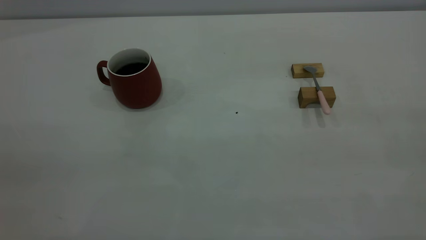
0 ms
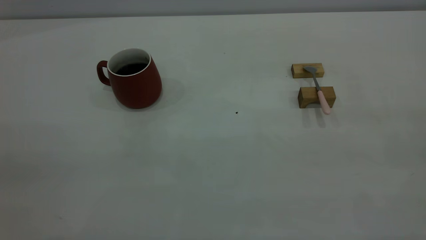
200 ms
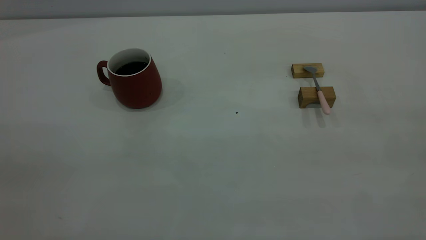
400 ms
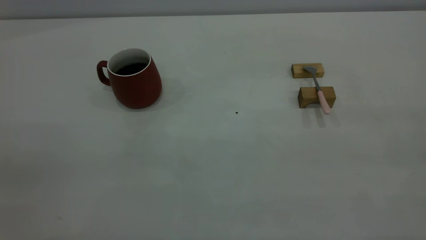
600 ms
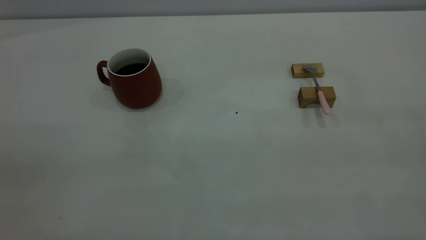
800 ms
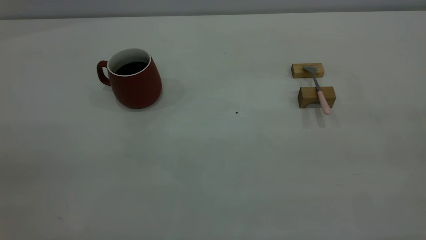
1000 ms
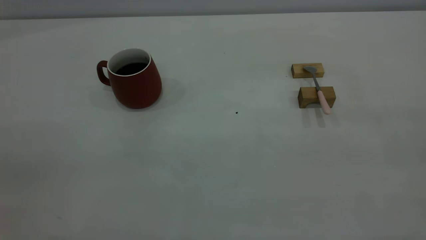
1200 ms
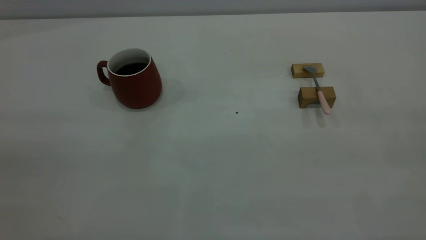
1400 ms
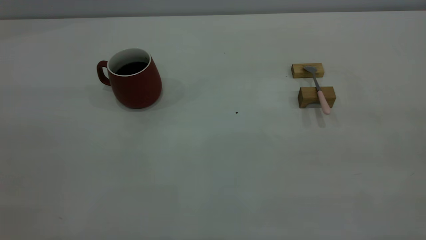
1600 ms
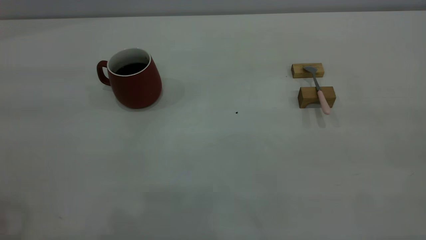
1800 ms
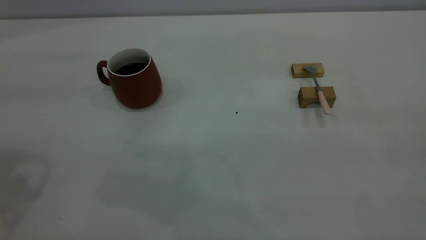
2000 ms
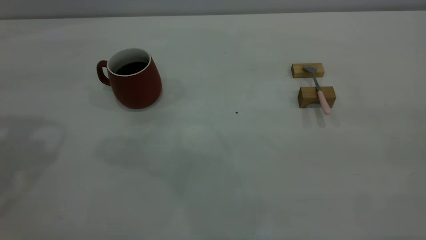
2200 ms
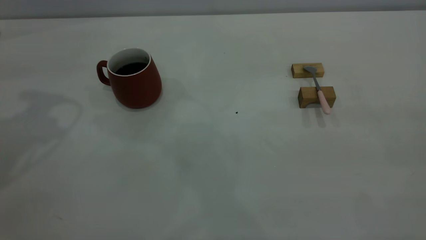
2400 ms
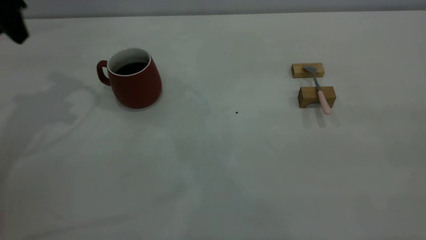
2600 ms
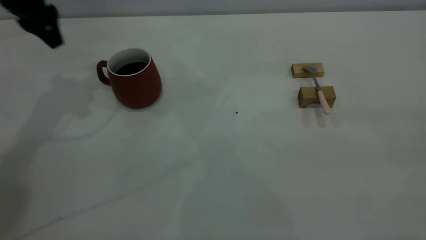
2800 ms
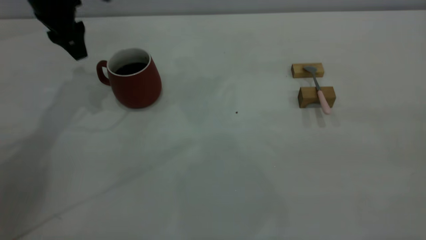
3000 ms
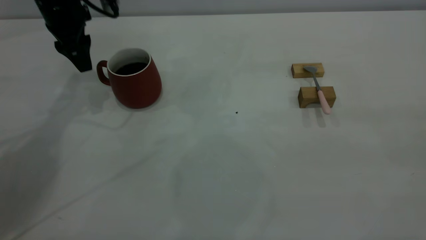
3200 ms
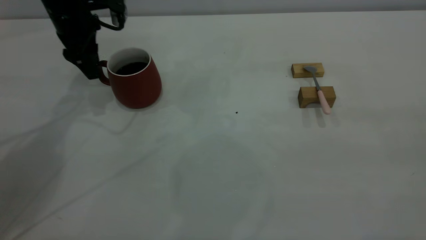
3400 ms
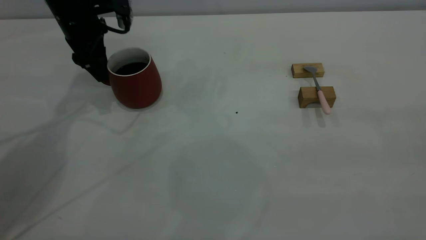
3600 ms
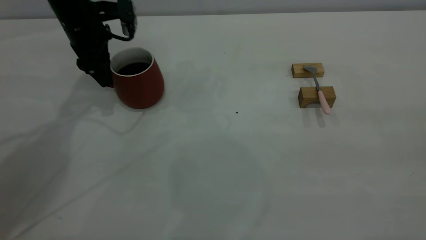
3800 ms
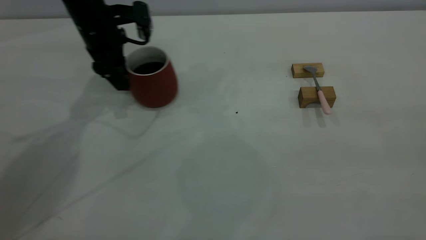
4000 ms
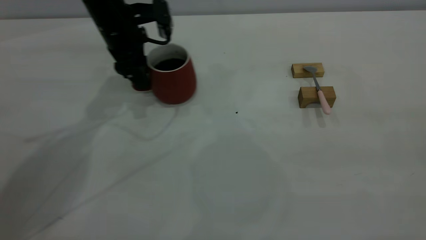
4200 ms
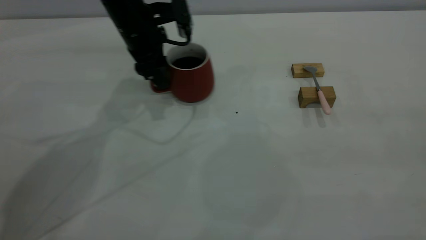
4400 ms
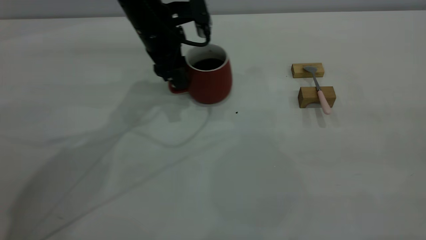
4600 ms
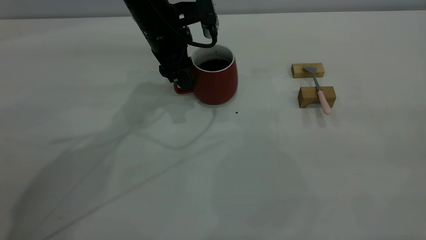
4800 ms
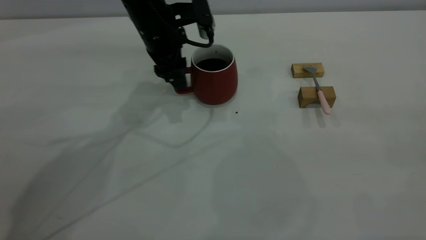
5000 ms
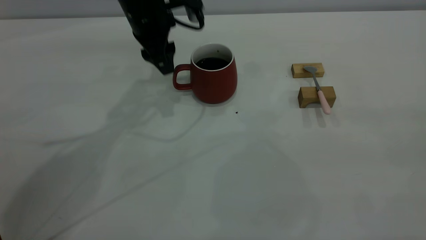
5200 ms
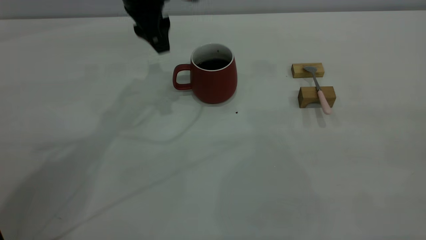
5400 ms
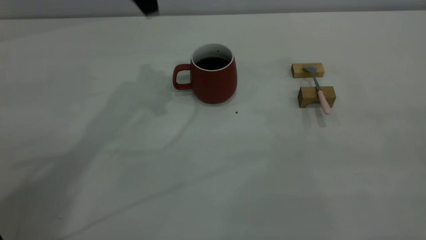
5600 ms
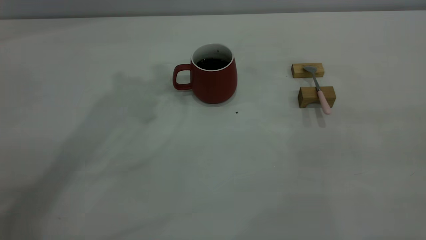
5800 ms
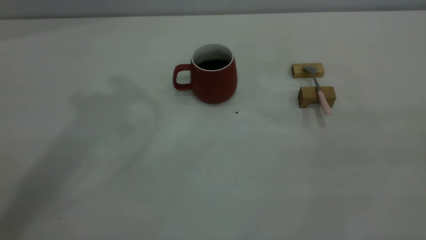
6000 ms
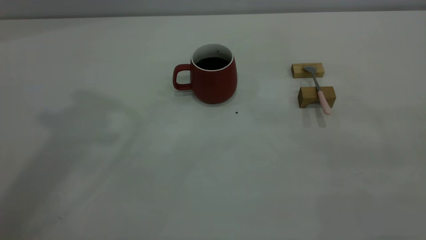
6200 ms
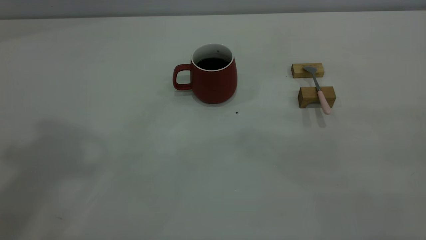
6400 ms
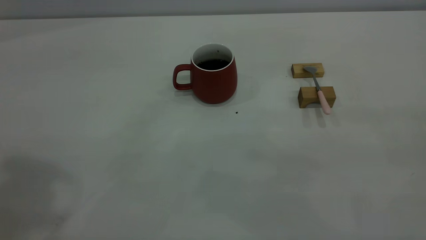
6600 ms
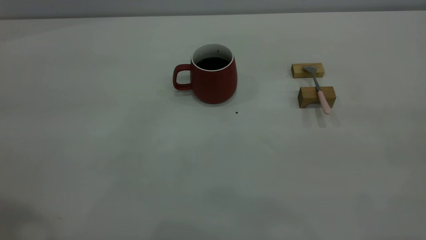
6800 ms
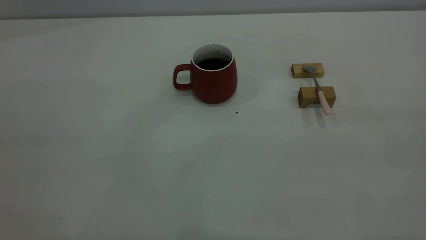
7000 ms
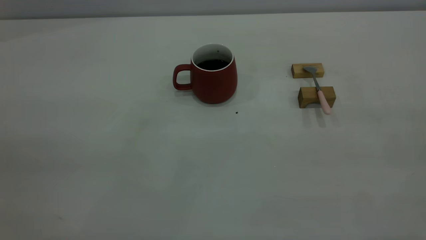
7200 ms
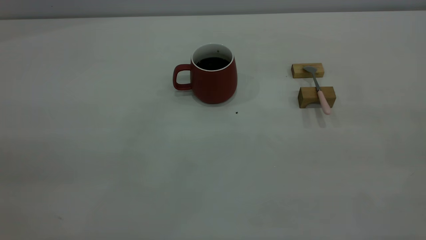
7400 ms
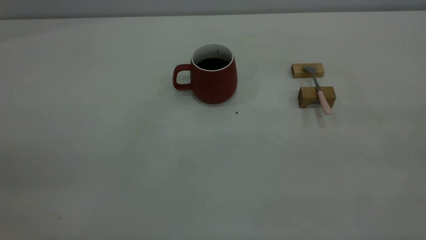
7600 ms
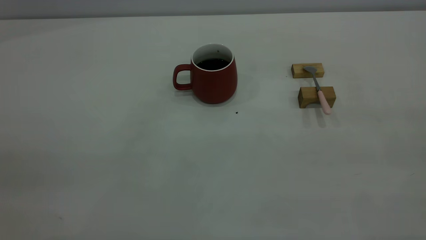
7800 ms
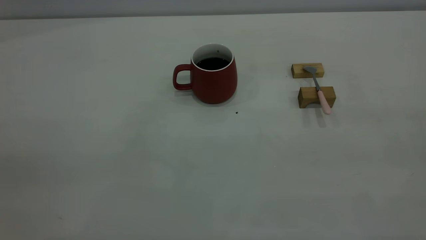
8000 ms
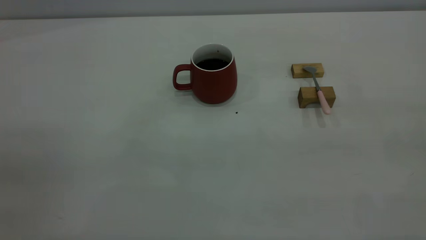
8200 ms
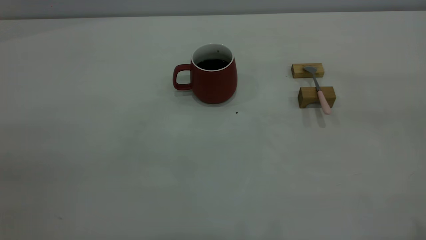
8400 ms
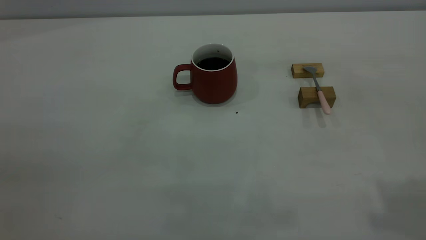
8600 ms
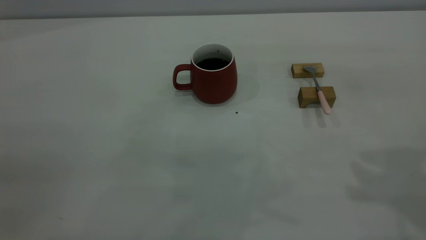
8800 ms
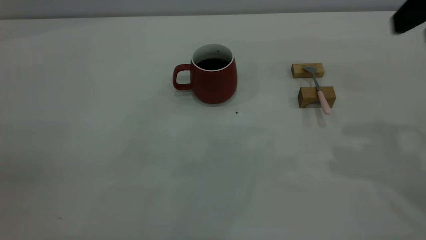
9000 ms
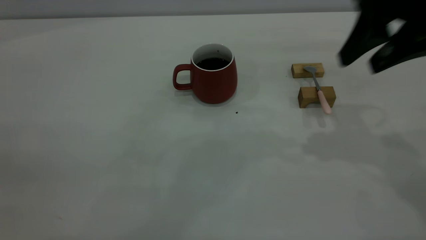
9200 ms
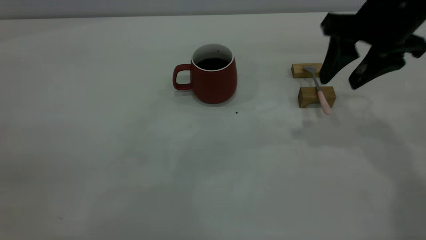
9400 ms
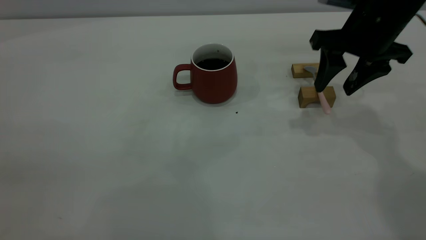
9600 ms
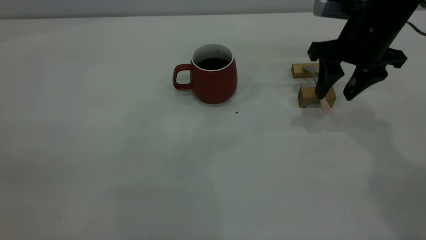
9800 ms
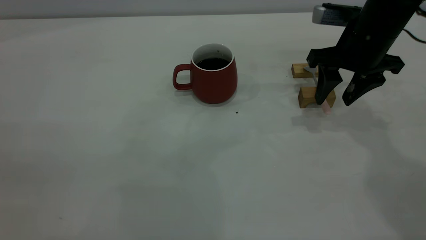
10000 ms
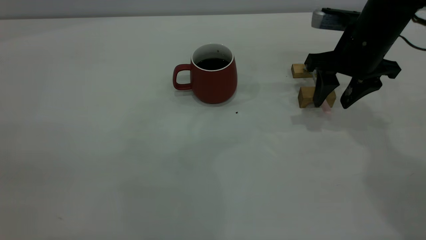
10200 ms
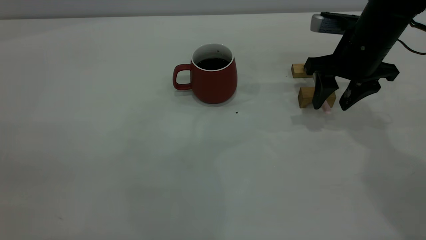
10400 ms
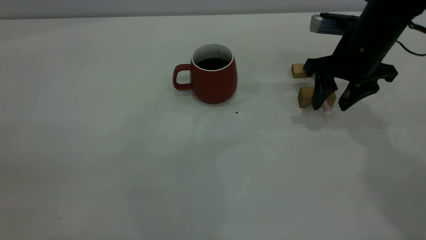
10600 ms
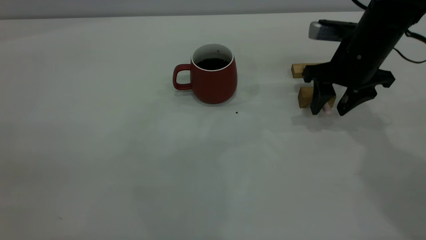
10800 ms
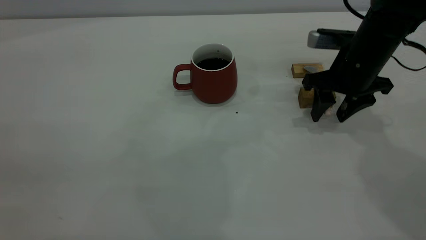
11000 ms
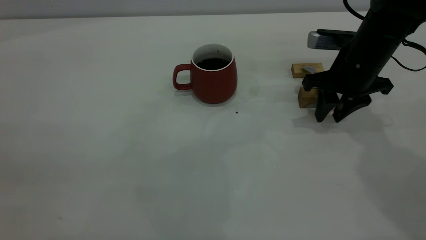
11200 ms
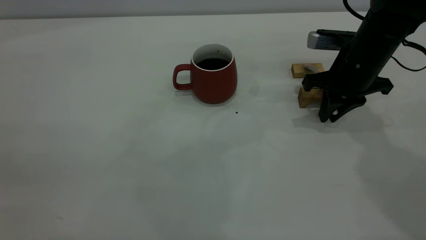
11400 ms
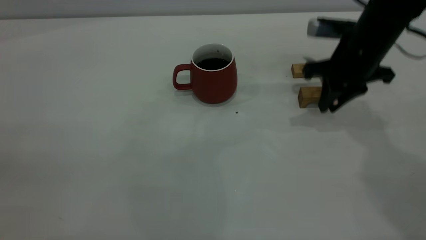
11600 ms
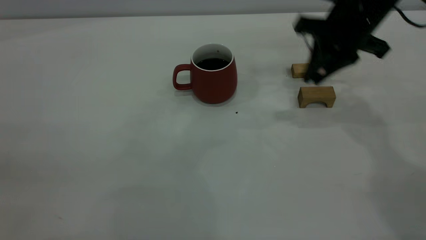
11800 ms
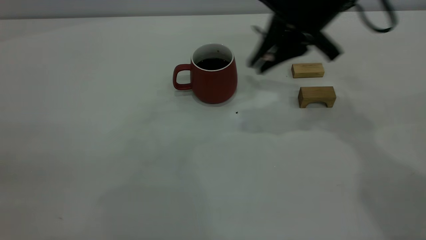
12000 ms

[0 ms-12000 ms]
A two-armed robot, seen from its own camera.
Step, 0 ms to 5200 ms: Move the cup with coffee to the center of view.
Step, 5400 ms to 11600 ms: Pick up the spoon.
1600 ms to 3000 ms: The left gripper is displaced forward and downward by some 40 cm.
3000 ms to 4400 ms: The left gripper heads to the right and downward, covering approximately 15 cm.
4400 ms to 6000 ms: The left gripper heads upward, covering roughly 35 cm.
7600 ms to 9000 ms: The right gripper travels forward by roughly 25 cm, and opens its fingers.
9000 ms to 10400 ms: The right gripper moves downward and forward, roughly 20 cm.
10400 ms to 12000 ms: The right gripper shifts about 10 cm to the left and upward, and closes its fingers.

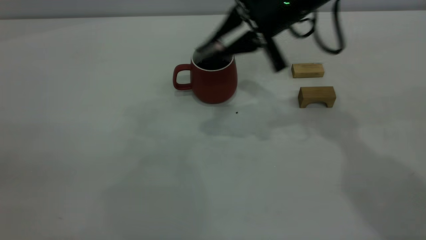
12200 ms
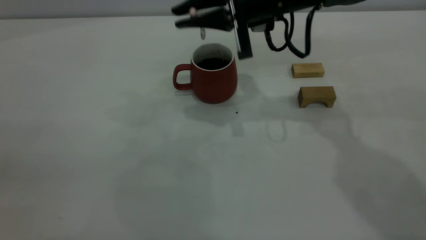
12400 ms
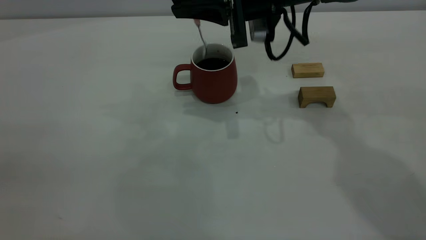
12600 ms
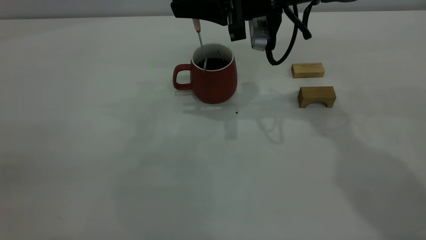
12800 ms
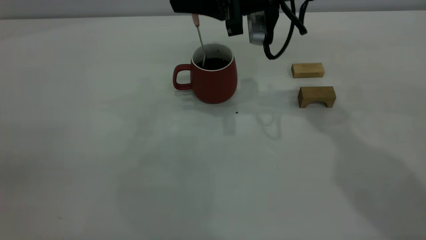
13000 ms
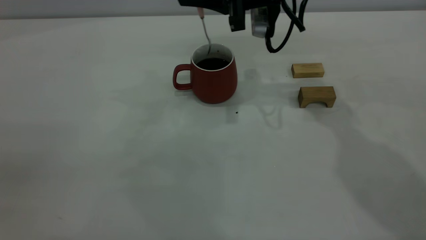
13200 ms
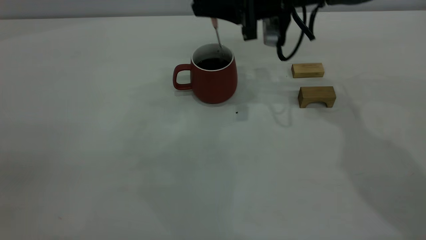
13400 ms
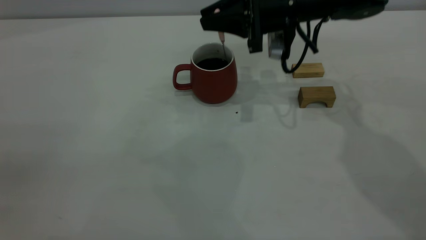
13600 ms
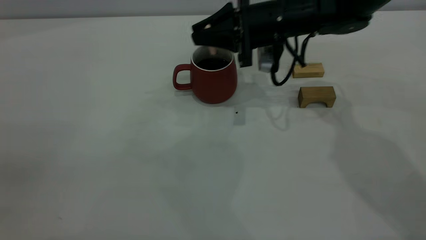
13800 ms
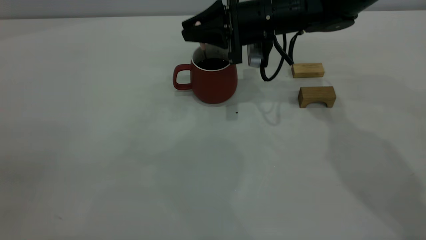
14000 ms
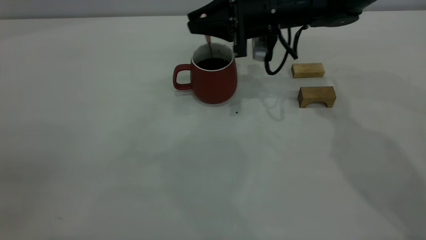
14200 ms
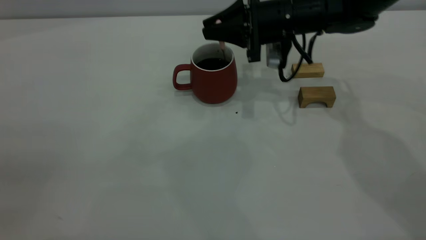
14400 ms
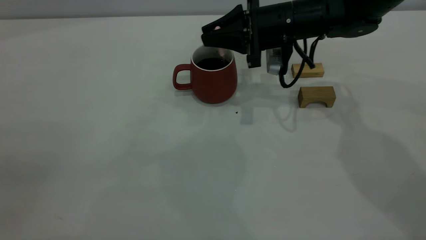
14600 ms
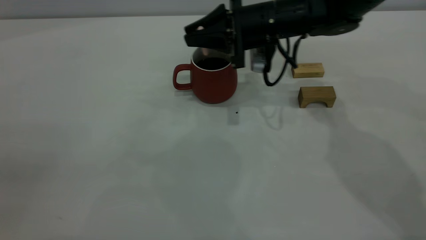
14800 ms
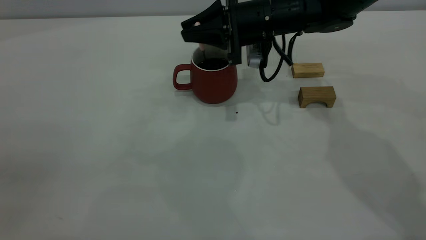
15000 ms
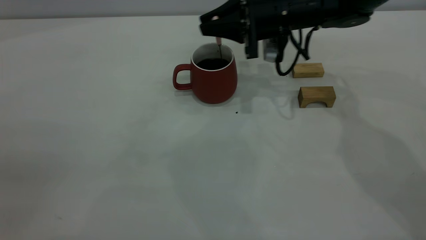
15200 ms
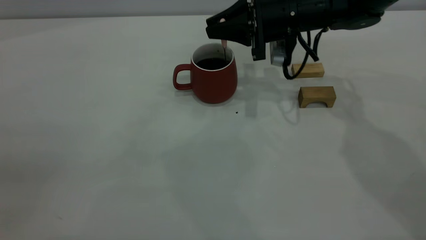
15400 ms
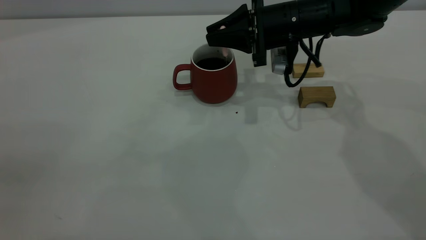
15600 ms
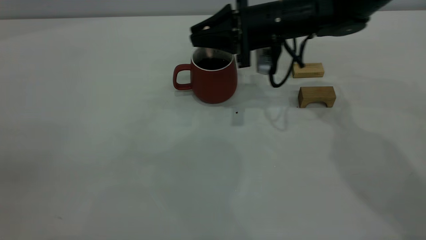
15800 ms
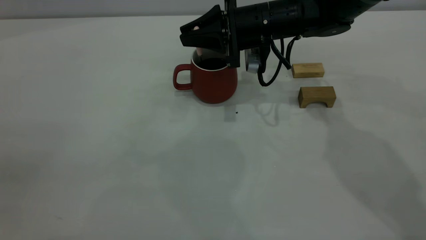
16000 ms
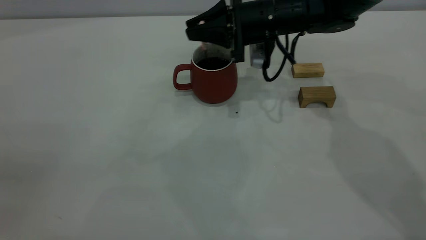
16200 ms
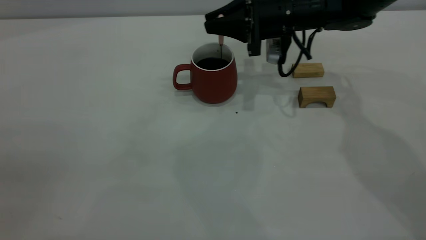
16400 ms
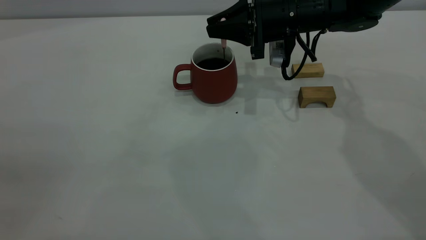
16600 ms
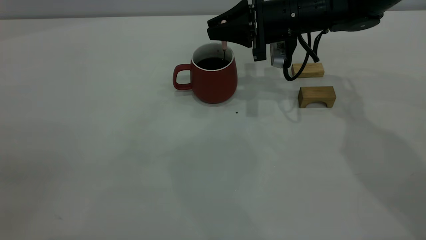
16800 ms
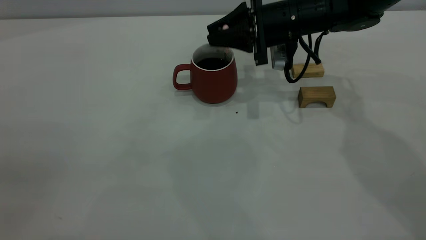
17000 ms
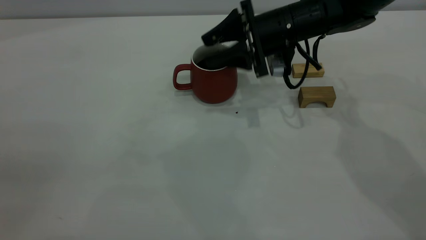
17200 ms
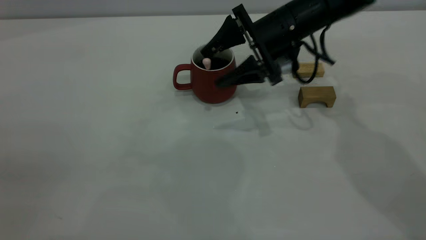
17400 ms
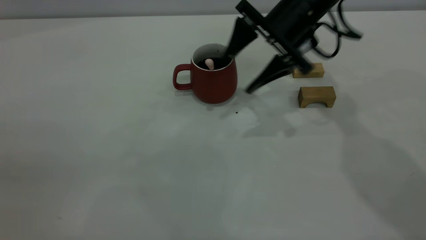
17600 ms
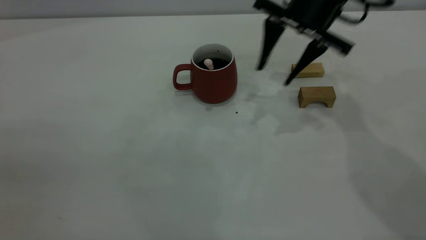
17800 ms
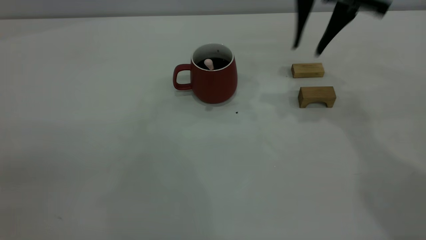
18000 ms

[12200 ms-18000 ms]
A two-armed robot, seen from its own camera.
Step, 12200 ms to 17400 ms: Stir the coffee in the cup.
12200 ms to 13600 ms: The right gripper goes about 5 cm forward.
13600 ms to 16600 ms: The grippers stay close to where they were, moving slightly.
16600 ms to 18000 ms: The right gripper heads upward, covering roughly 15 cm, and opens.
